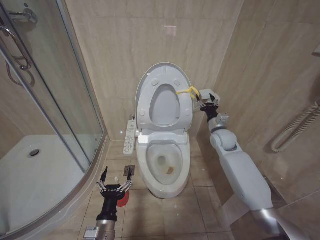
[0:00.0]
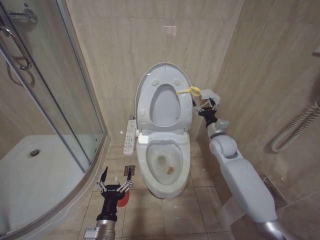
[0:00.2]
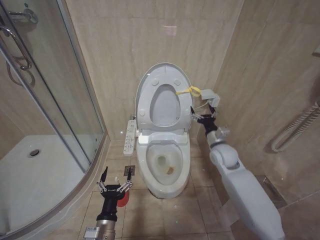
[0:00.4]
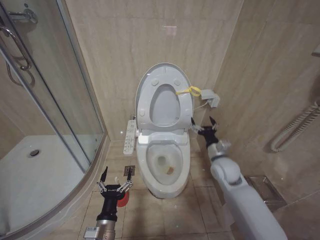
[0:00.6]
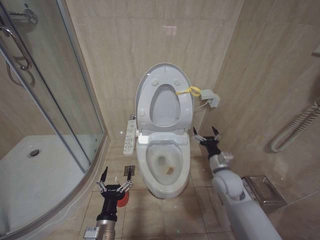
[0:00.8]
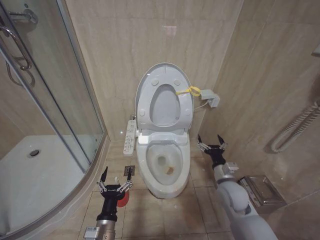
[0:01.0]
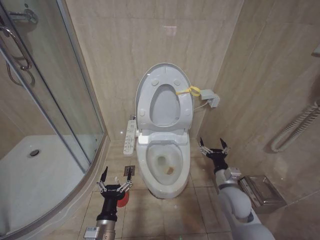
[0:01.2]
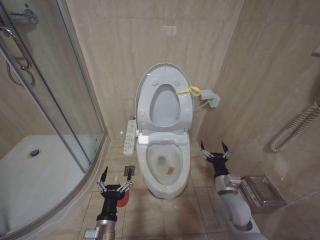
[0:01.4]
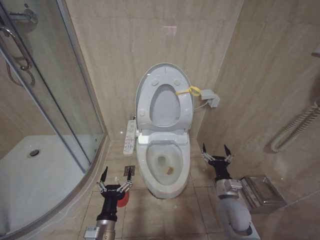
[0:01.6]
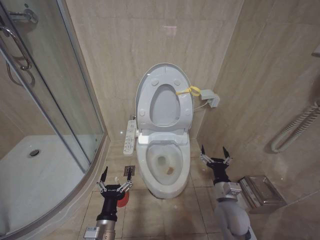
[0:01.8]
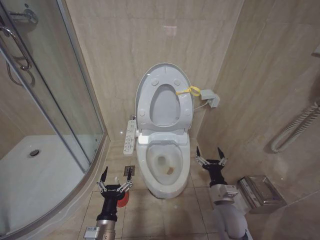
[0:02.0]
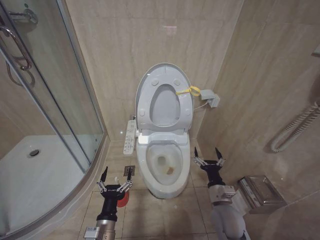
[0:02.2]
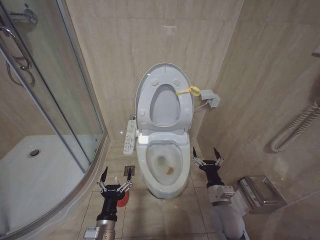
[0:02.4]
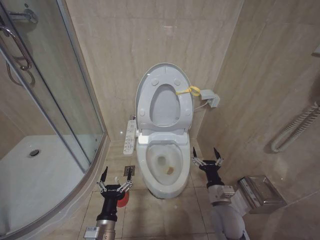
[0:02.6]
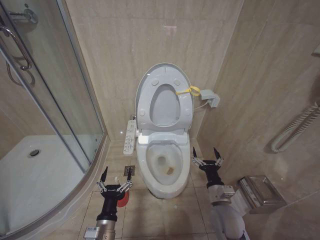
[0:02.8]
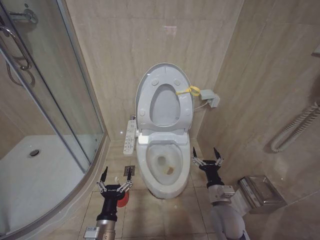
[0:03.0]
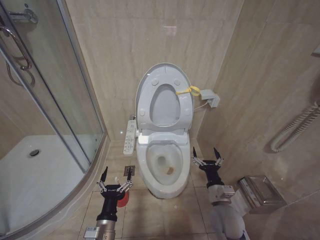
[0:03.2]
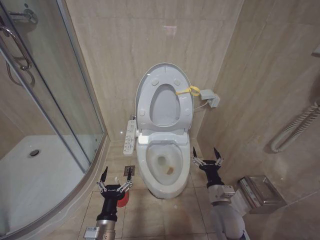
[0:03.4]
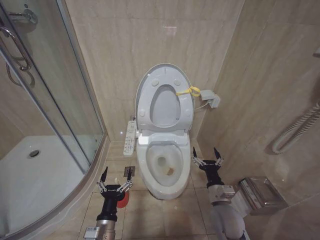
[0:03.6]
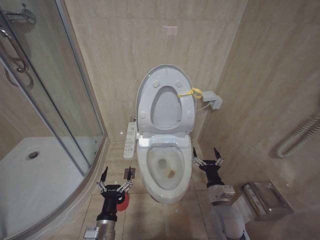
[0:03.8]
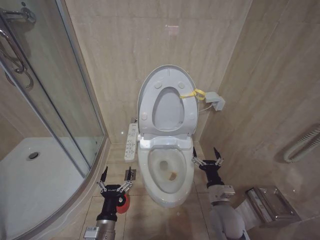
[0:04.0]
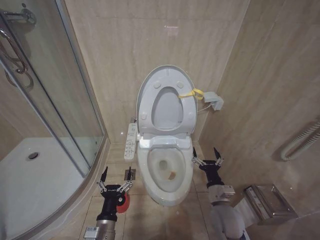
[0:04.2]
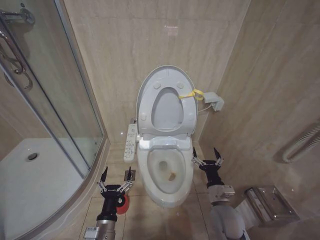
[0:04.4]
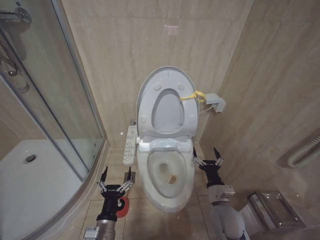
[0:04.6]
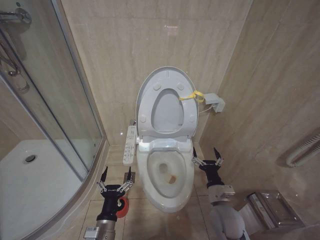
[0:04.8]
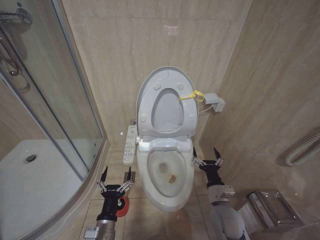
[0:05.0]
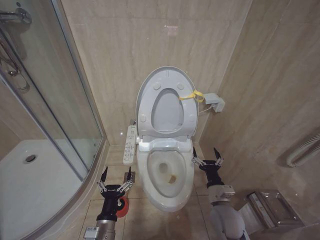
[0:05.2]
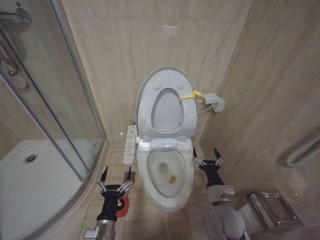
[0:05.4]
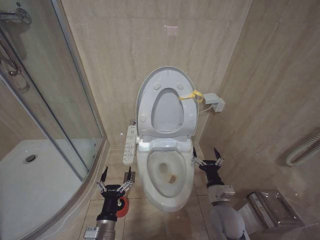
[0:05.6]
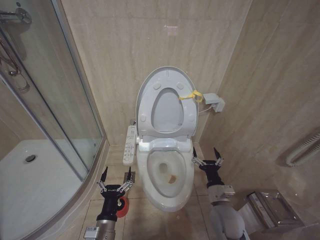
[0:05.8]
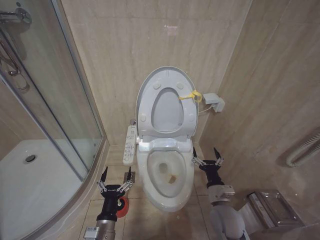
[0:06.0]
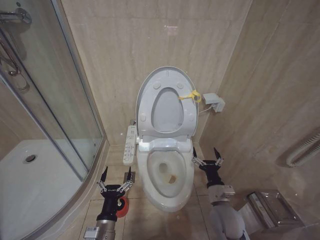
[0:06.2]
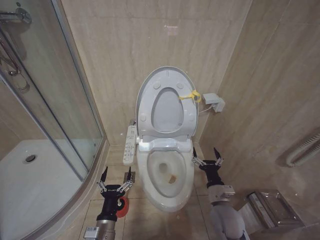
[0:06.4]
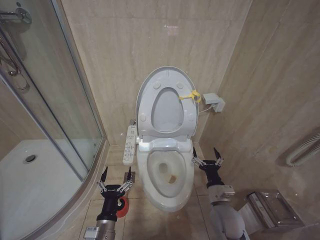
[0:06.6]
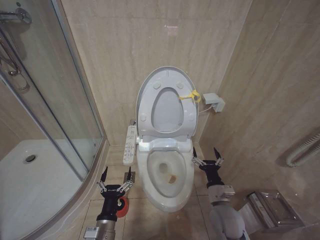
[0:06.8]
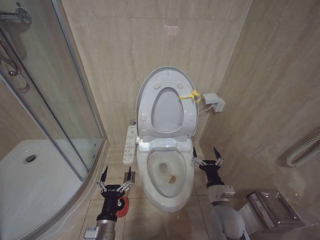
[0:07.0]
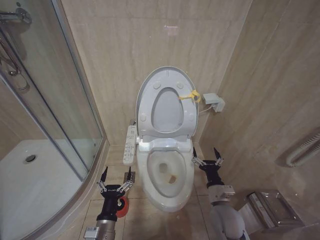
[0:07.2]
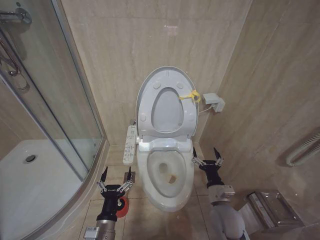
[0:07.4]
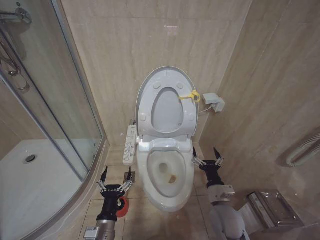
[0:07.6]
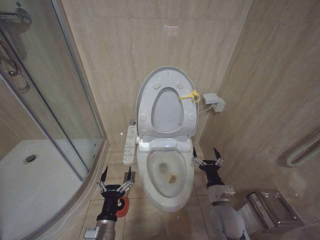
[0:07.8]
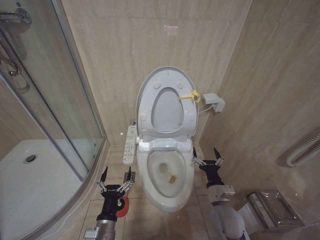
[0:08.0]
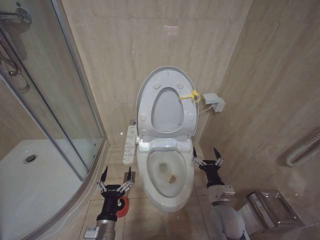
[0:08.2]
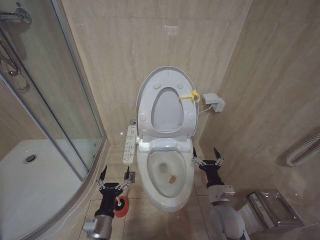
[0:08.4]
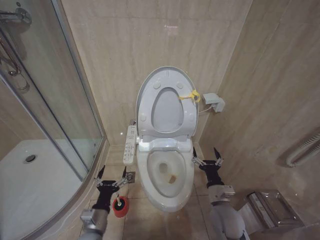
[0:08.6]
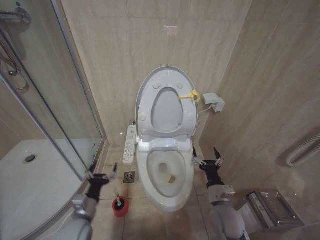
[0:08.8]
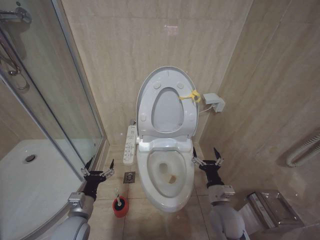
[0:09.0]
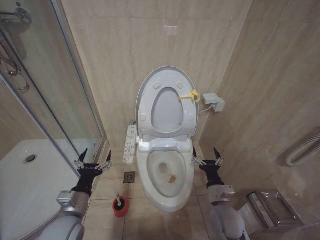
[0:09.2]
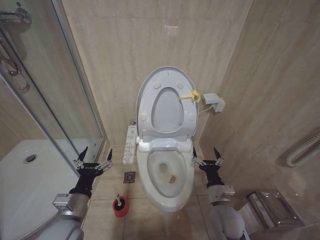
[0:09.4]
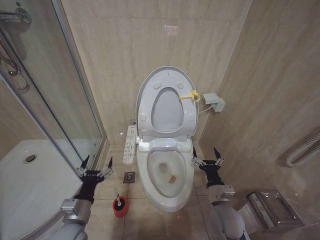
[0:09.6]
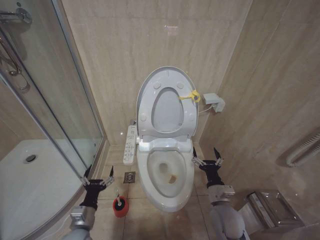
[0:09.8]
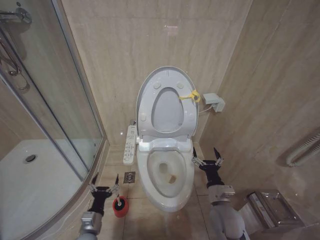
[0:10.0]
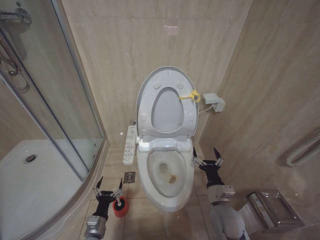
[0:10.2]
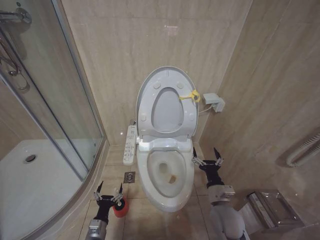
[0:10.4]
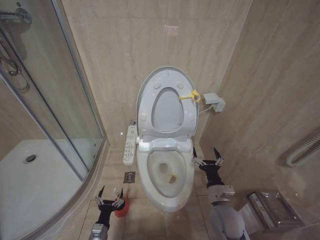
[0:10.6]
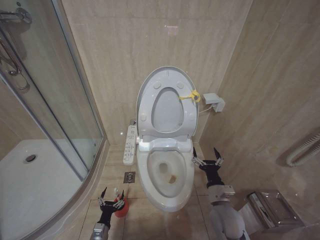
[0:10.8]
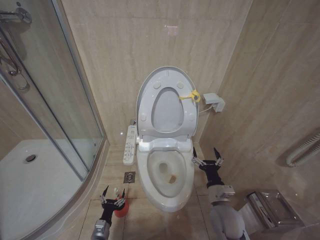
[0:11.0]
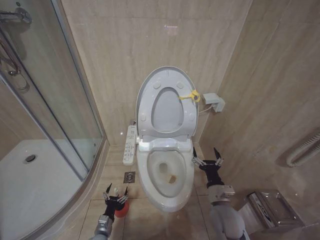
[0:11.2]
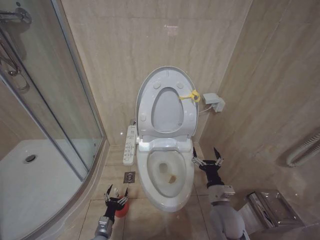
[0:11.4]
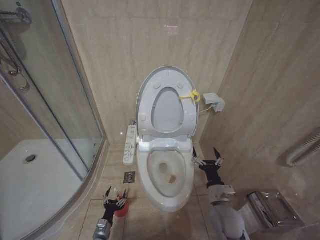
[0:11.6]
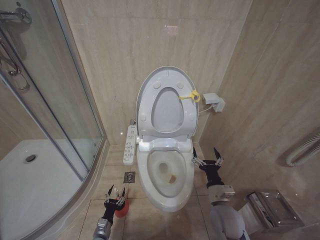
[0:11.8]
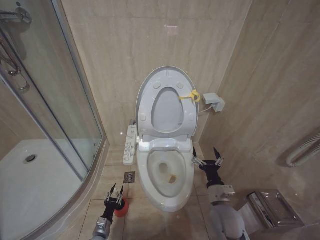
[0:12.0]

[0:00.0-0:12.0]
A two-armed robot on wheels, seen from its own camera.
Task of the whole recording: Open the toilet lid, clean the toilet bowl with a toilet brush, close the toilet lid, and flush.
0:00.0 to 0:01.6: The right gripper travels backward and downward by some 25 cm, and opens.
0:01.6 to 0:03.0: There are only small adjustments of the grippers.
0:03.0 to 0:07.6: Both grippers stay about where they are.
0:07.6 to 0:09.0: The left gripper goes about 10 cm to the left and forward.
0:09.0 to 0:10.4: The left gripper moves downward, some 15 cm.
0:10.4 to 0:12.0: The left gripper heads downward, covering some 10 cm.

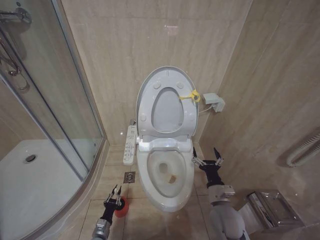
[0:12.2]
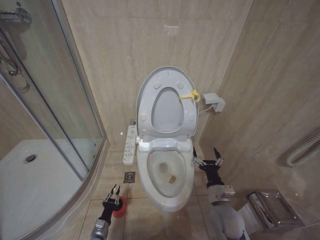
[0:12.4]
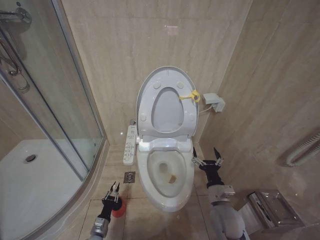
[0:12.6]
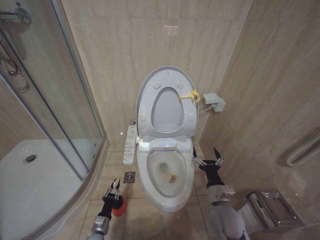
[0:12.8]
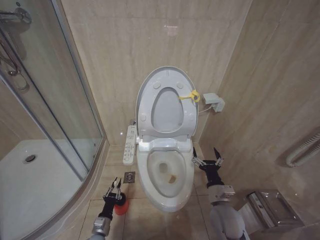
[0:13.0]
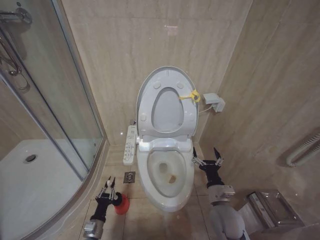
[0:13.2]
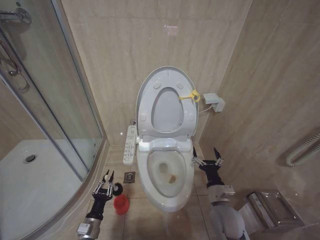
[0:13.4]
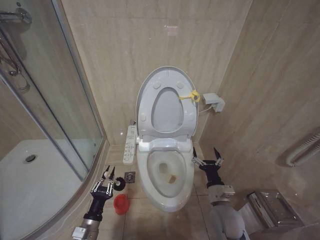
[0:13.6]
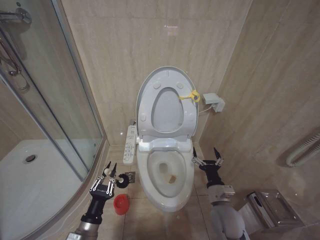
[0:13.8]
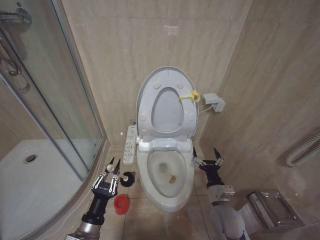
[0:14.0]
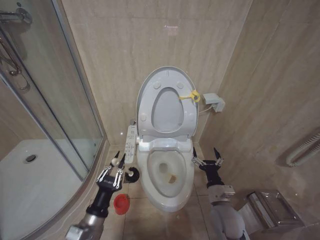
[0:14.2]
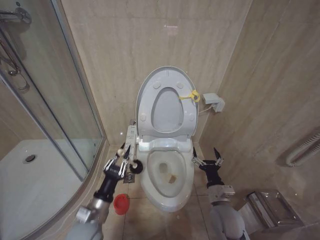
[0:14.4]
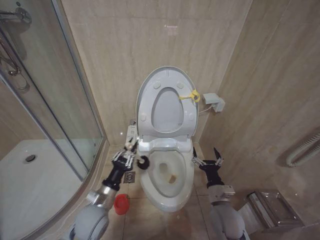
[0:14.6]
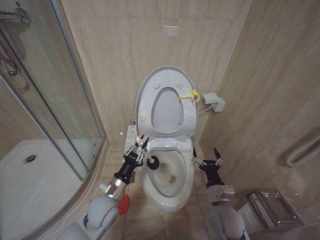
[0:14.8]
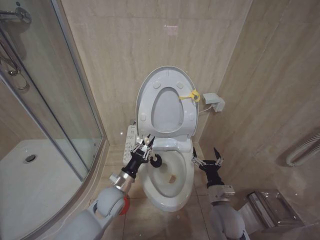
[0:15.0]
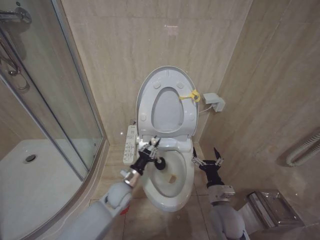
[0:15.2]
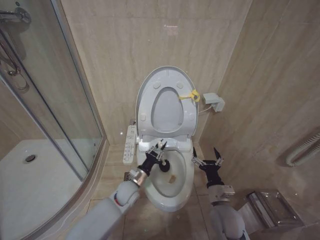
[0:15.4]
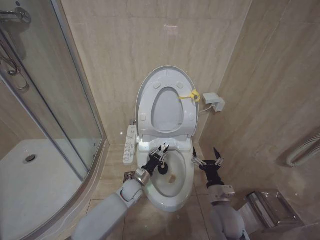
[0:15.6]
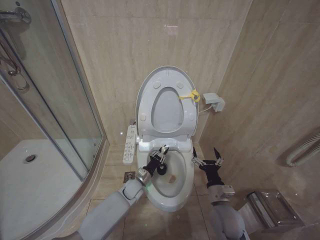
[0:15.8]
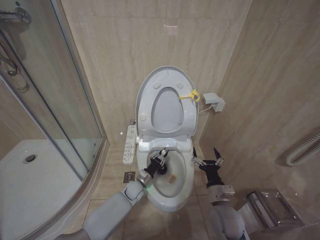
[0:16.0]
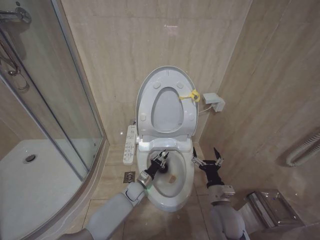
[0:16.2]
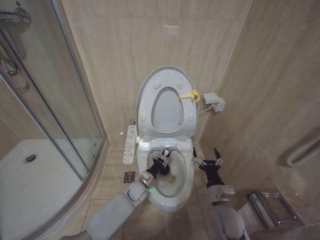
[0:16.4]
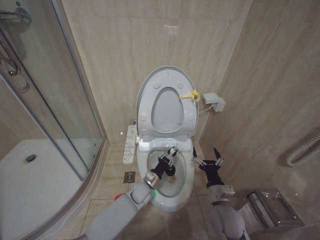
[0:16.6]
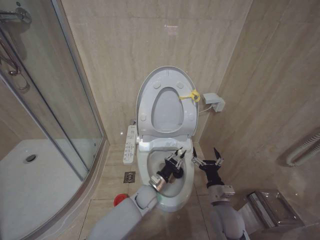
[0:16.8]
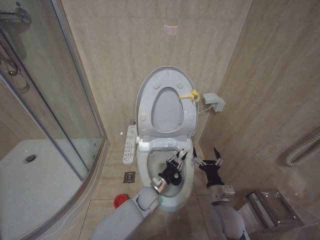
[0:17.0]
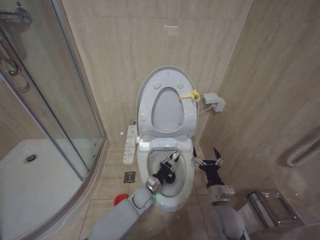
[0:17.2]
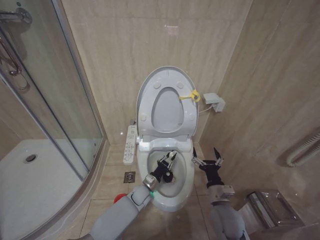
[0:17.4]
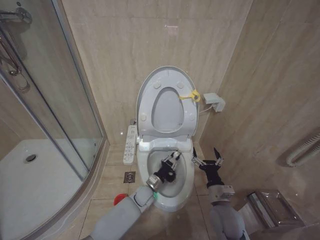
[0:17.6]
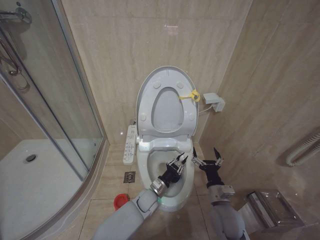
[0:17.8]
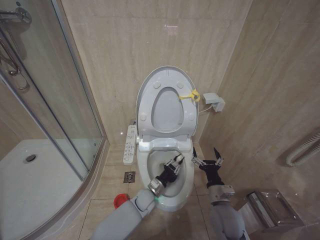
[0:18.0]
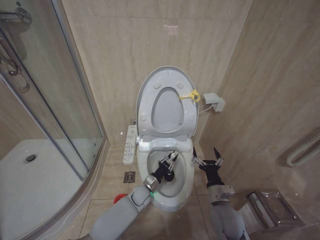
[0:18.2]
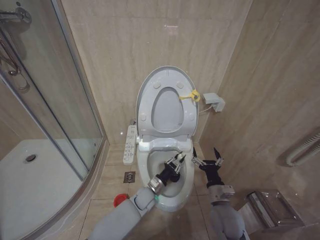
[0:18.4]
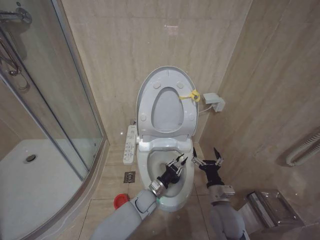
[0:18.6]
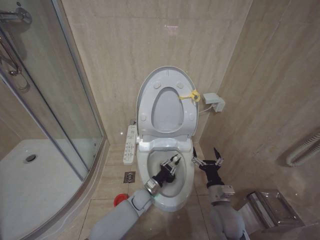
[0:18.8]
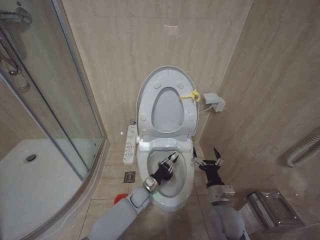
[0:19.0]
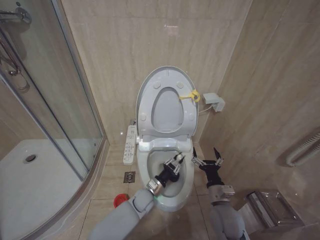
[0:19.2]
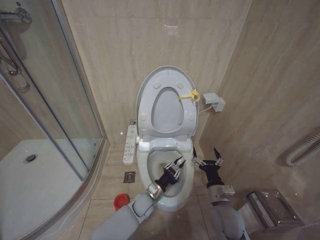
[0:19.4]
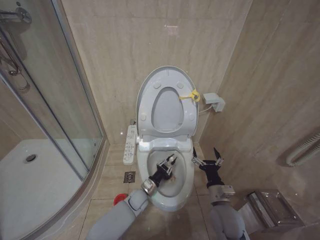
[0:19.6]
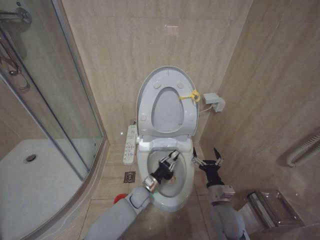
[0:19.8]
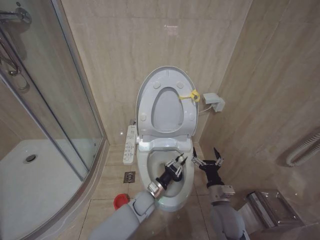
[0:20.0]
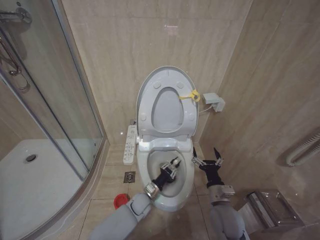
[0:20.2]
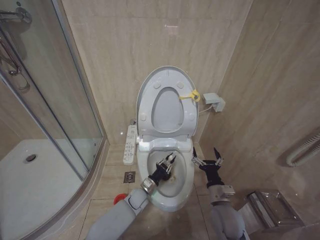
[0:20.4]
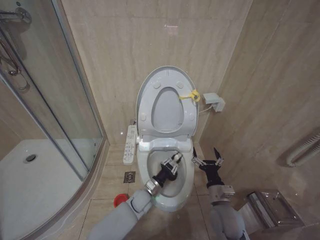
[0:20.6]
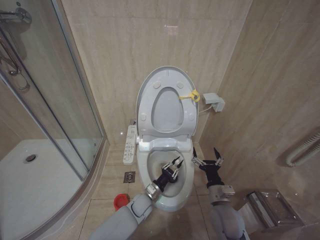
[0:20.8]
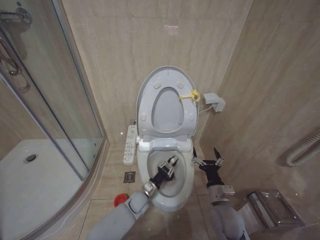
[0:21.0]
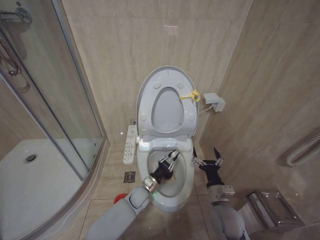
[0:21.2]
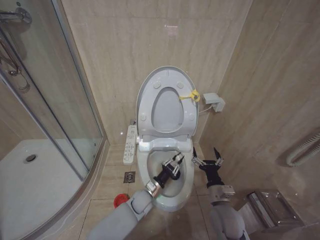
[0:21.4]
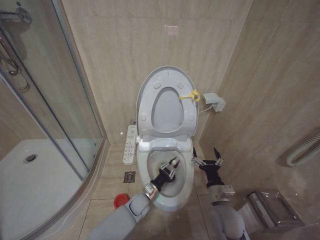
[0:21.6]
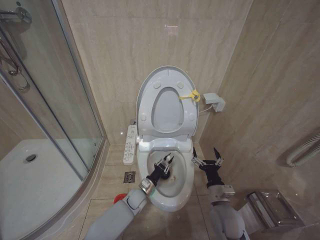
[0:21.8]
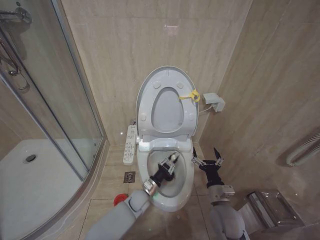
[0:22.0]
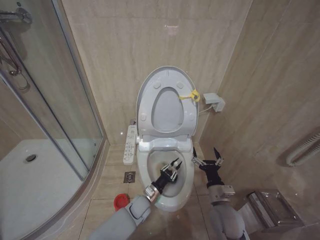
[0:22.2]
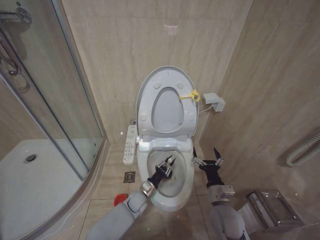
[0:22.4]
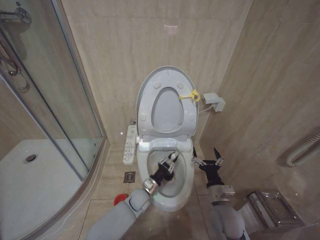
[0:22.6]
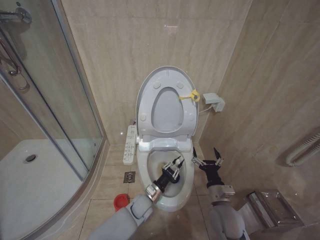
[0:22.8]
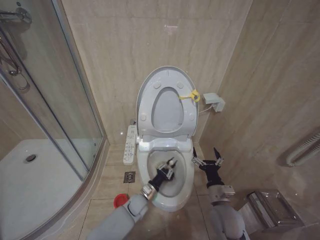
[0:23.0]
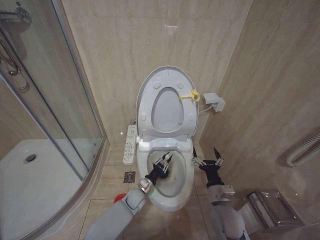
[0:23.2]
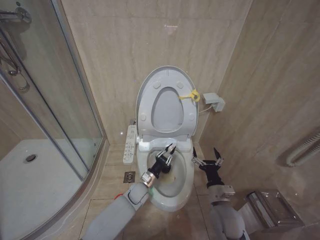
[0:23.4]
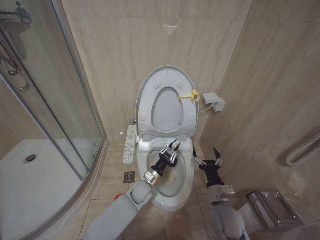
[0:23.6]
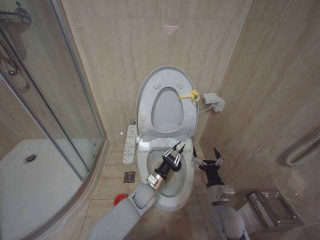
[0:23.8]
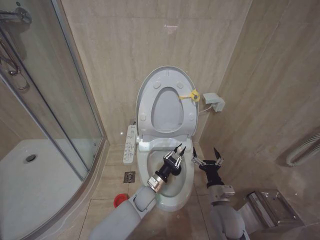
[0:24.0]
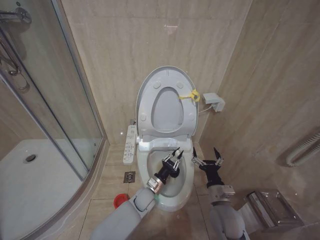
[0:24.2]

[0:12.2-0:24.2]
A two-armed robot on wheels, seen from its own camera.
Task of the whole recording: Open the toilet lid, clean the toilet bowl with a toilet brush, close the toilet lid, and flush.
0:12.2 to 0:13.8: The left gripper travels upward by roughly 20 cm.
0:13.8 to 0:15.2: The left gripper is displaced forward and to the right by roughly 20 cm.
0:15.2 to 0:16.6: The left gripper travels downward, to the right and forward by approximately 15 cm.
0:22.6 to 0:24.2: The left gripper shifts by approximately 5 cm.
